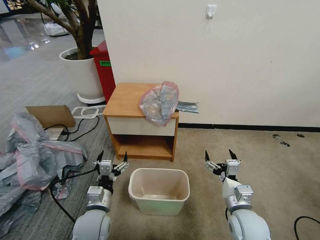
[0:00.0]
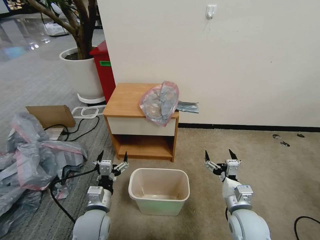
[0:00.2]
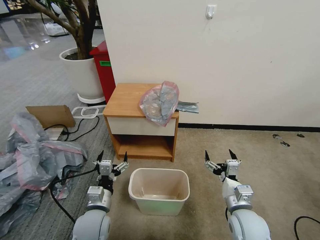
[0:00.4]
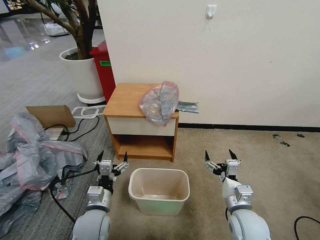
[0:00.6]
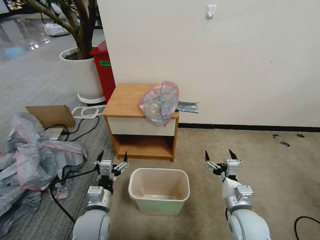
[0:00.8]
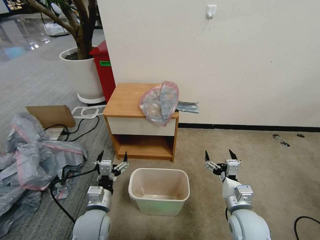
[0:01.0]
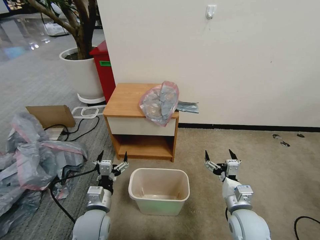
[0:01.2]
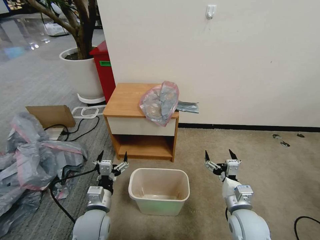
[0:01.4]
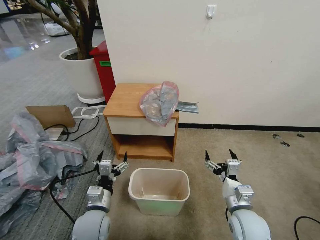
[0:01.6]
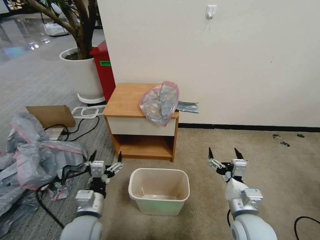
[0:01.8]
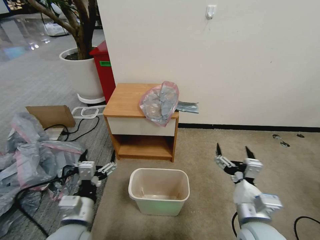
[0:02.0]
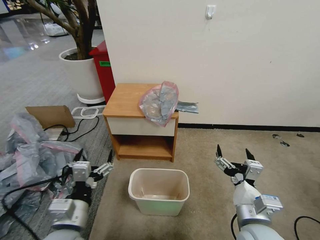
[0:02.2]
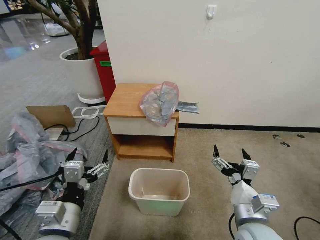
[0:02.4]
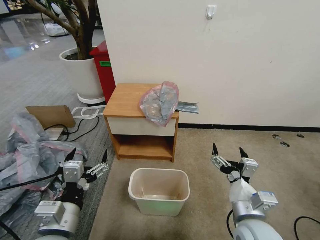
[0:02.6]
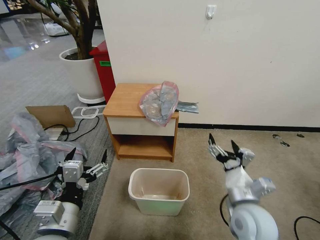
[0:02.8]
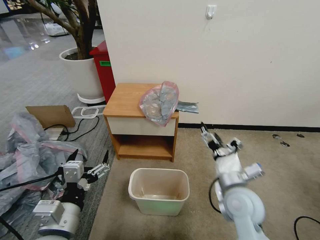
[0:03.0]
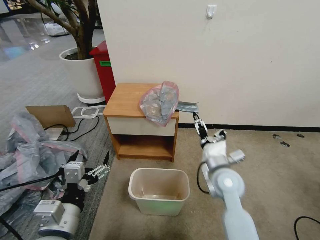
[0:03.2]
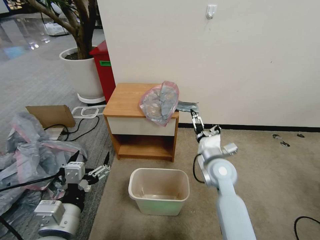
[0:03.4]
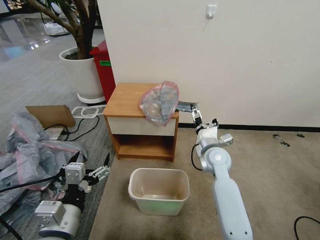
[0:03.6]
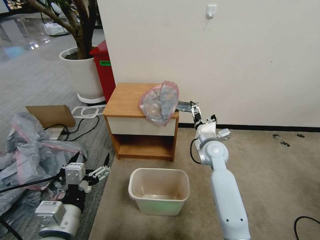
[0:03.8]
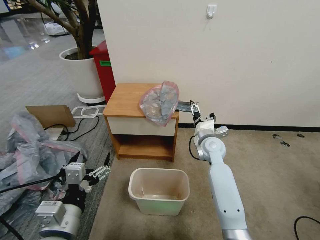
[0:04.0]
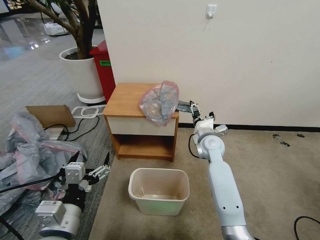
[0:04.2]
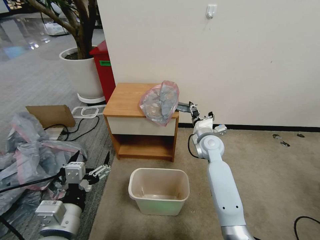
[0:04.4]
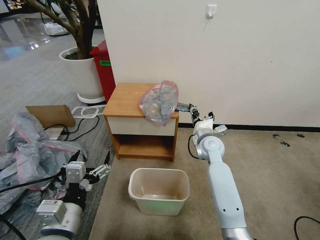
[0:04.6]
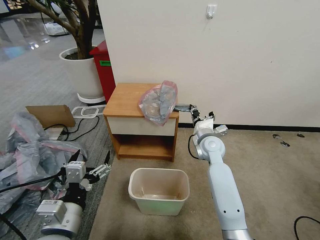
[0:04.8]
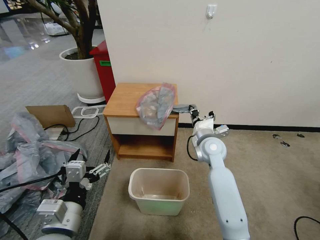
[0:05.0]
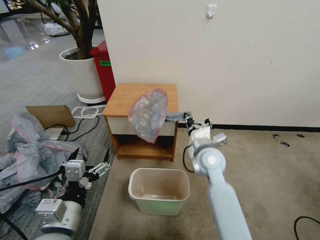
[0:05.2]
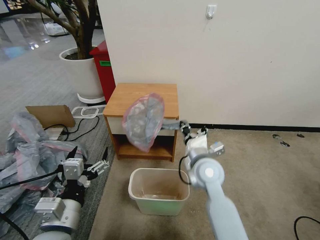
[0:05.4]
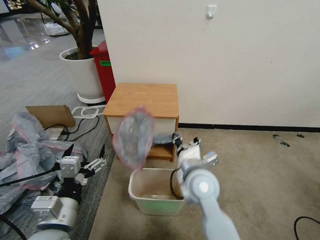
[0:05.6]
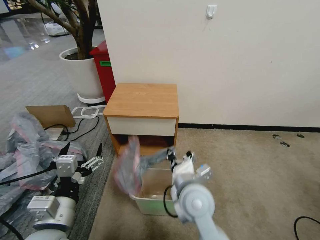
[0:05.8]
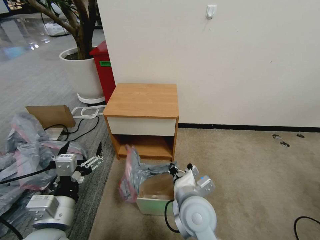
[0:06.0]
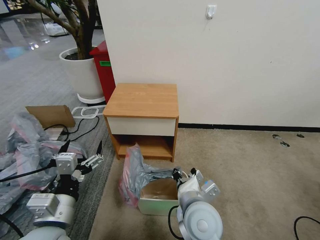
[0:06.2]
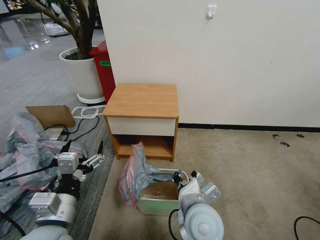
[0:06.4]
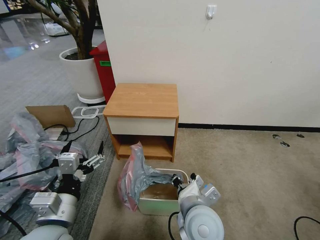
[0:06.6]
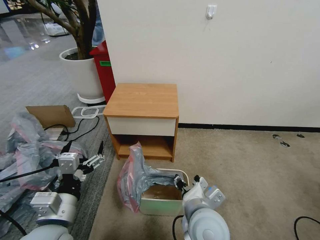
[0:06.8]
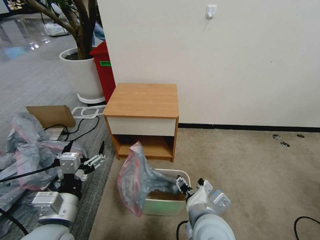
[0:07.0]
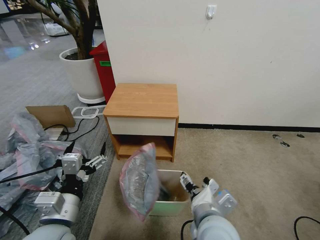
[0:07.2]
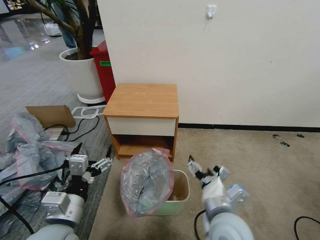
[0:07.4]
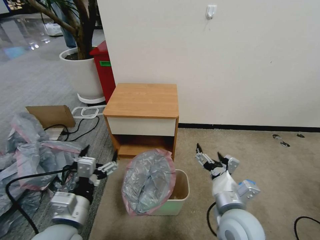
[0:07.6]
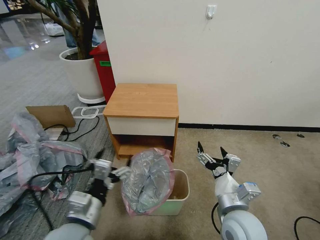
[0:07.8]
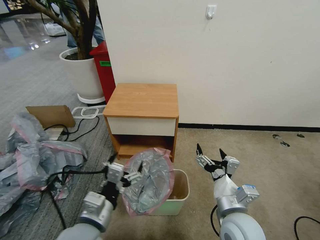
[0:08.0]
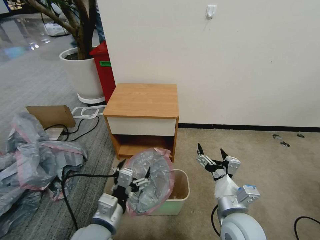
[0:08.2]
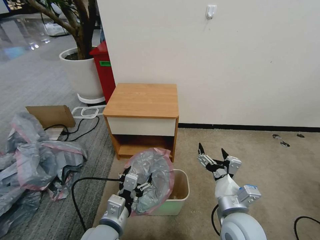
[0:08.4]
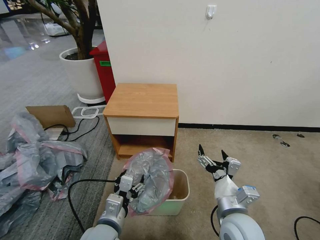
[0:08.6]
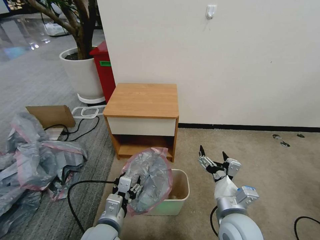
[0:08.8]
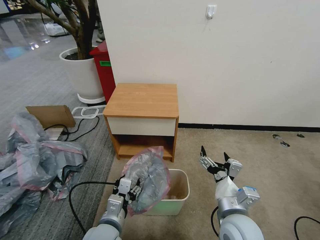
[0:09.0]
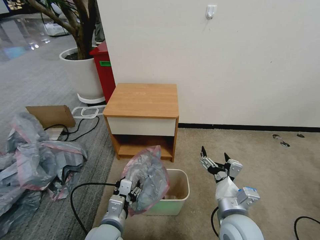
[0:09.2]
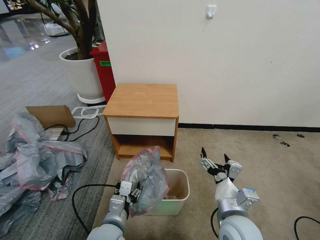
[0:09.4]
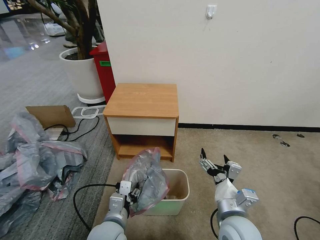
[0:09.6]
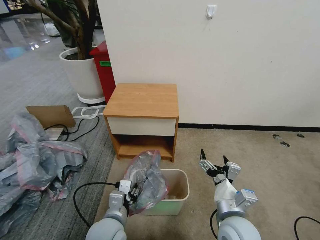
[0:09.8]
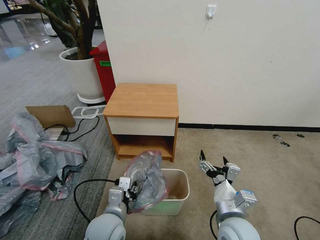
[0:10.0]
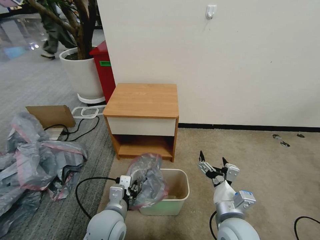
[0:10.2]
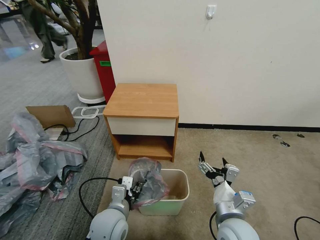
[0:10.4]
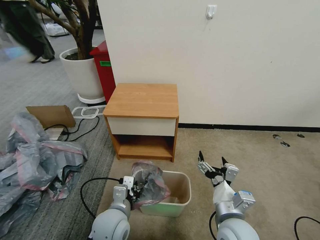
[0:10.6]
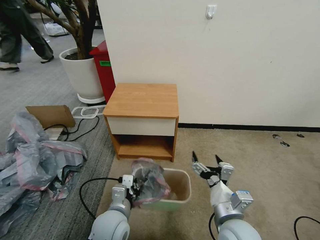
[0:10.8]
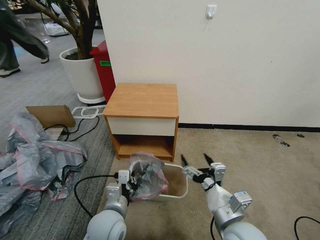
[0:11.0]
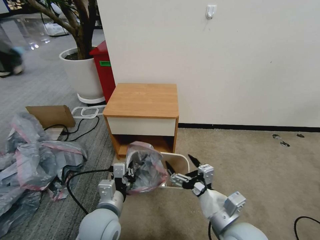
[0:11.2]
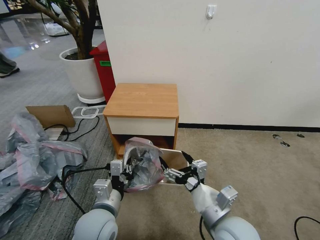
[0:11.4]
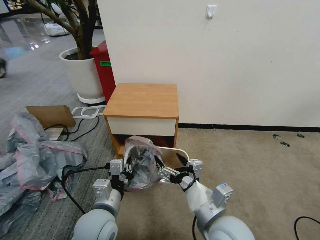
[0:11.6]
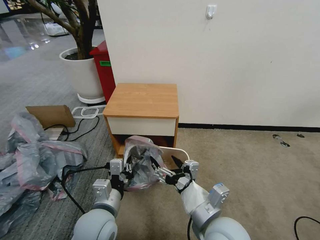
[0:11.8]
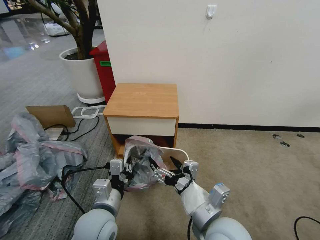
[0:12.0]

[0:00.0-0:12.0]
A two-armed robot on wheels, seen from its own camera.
Task of the whole recording: Pick up the garbage bag from the table and place it over the trash can.
0:01.6 to 0:03.0: The right gripper moves upward, about 10 cm. The left gripper shifts some 15 cm upward and backward.
0:03.0 to 0:04.4: The right gripper goes about 20 cm forward, and closes its fingers.
0:04.4 to 0:06.0: The right gripper shifts approximately 25 cm backward and to the left, and closes.
0:06.0 to 0:07.6: The right gripper shifts about 10 cm to the right, and opens its fingers.
0:07.6 to 0:09.0: The left gripper shifts about 10 cm downward and to the right, and closes its fingers.
0:09.0 to 0:10.4: The grippers make only small movements.
0:10.4 to 0:12.0: The left gripper moves some 5 cm. Meanwhile the right gripper shifts approximately 10 cm upward and to the left.

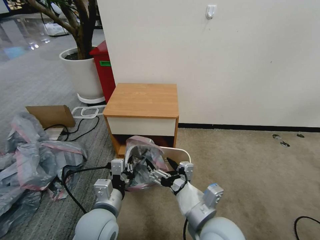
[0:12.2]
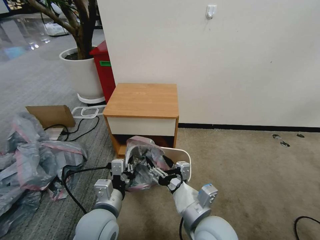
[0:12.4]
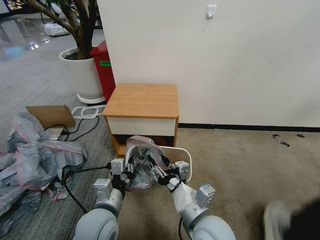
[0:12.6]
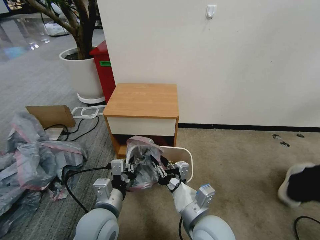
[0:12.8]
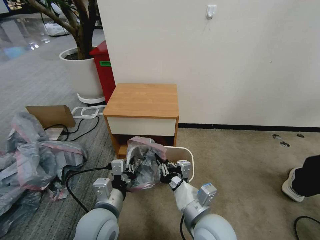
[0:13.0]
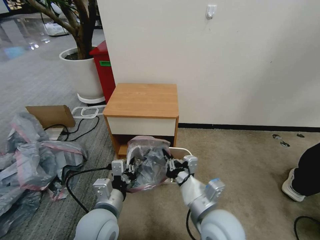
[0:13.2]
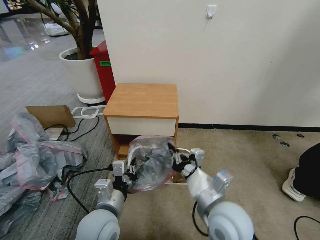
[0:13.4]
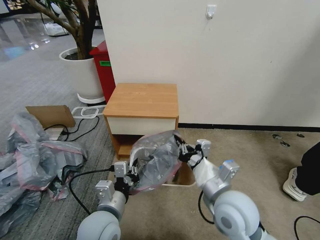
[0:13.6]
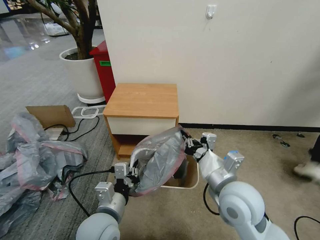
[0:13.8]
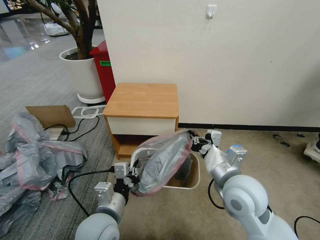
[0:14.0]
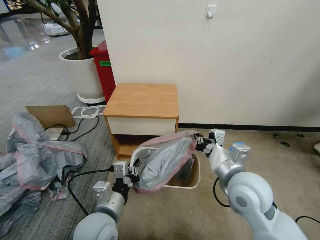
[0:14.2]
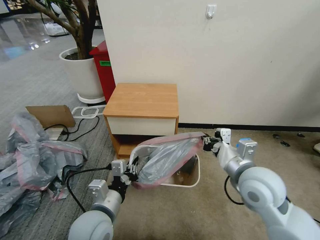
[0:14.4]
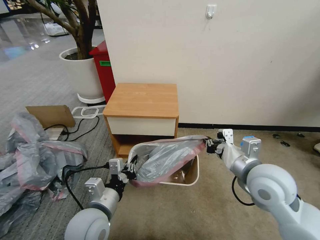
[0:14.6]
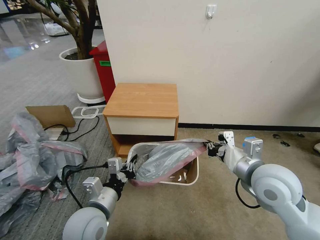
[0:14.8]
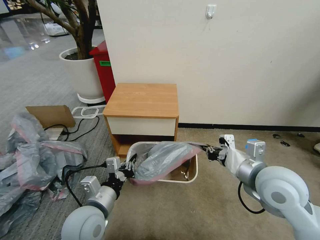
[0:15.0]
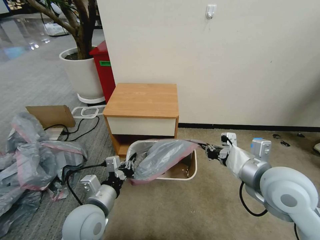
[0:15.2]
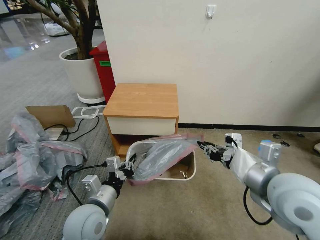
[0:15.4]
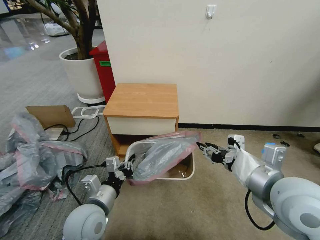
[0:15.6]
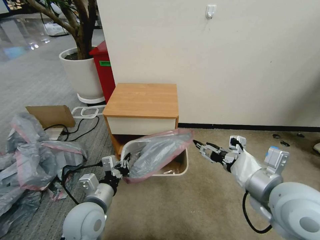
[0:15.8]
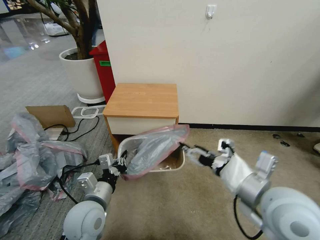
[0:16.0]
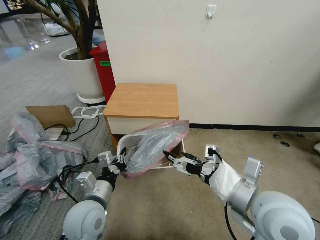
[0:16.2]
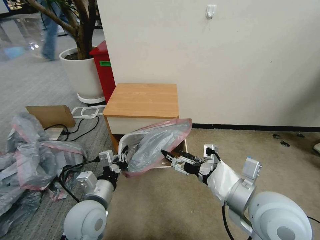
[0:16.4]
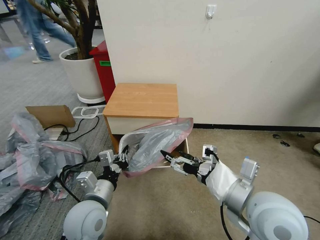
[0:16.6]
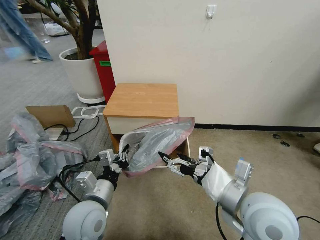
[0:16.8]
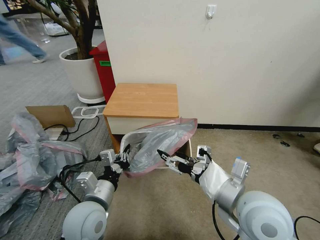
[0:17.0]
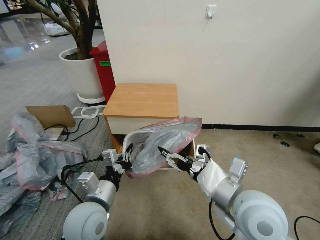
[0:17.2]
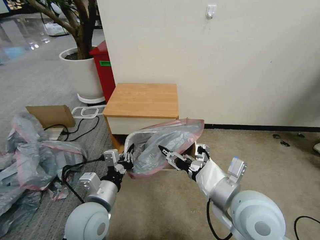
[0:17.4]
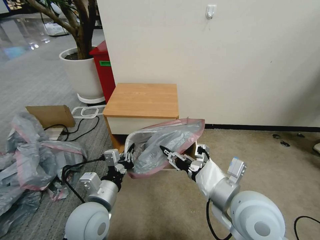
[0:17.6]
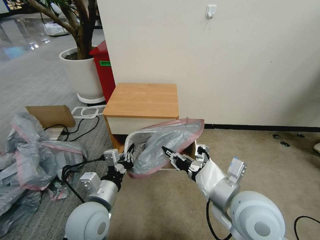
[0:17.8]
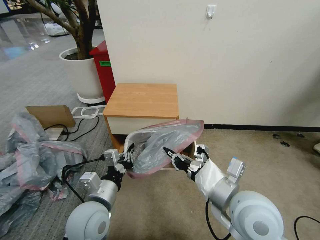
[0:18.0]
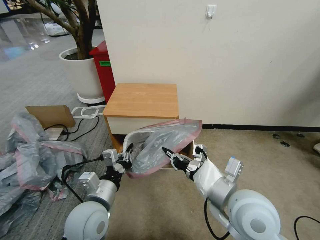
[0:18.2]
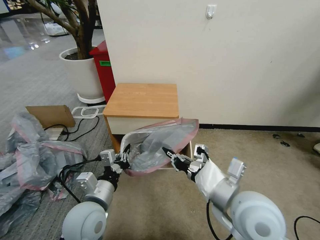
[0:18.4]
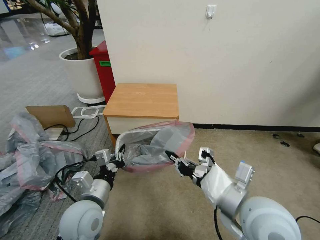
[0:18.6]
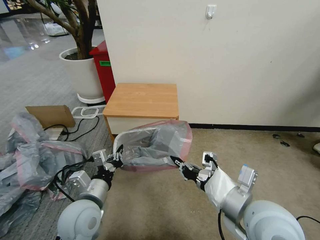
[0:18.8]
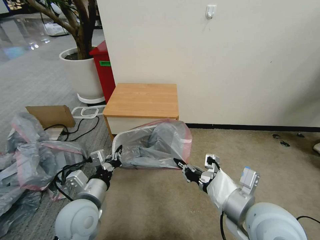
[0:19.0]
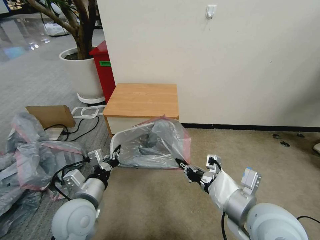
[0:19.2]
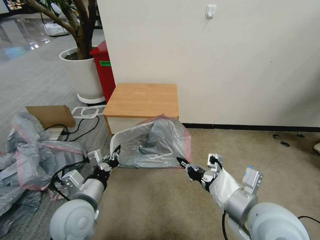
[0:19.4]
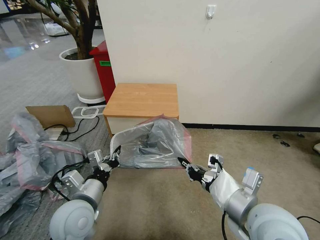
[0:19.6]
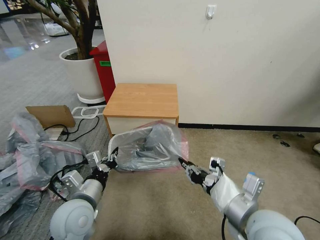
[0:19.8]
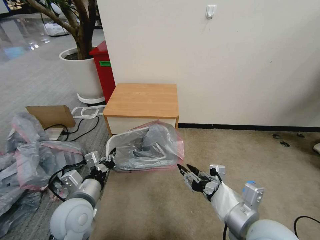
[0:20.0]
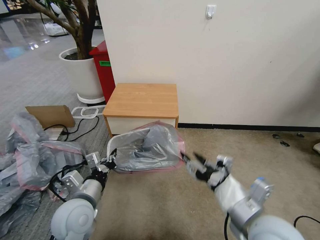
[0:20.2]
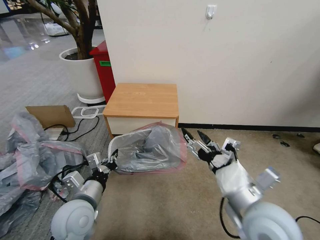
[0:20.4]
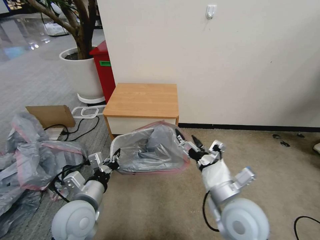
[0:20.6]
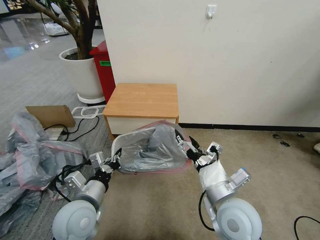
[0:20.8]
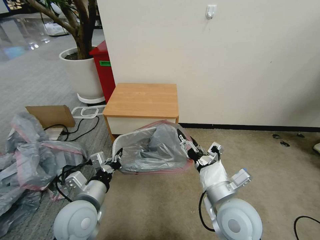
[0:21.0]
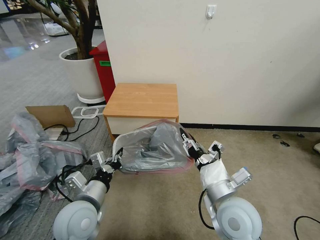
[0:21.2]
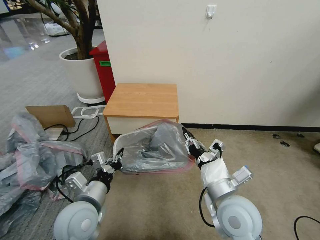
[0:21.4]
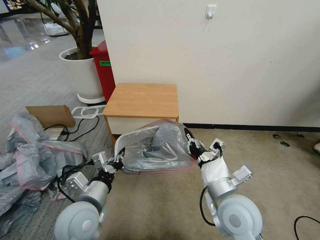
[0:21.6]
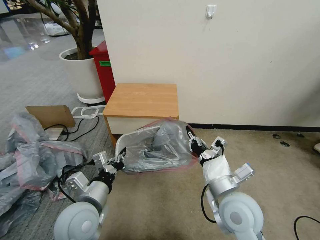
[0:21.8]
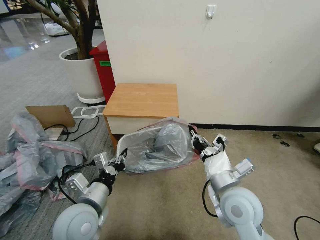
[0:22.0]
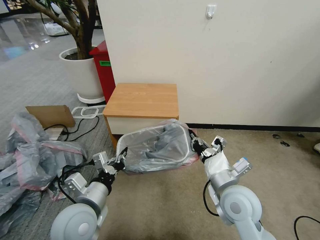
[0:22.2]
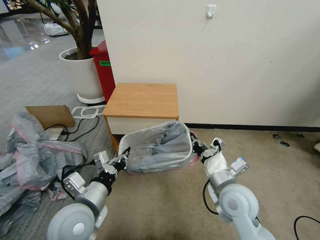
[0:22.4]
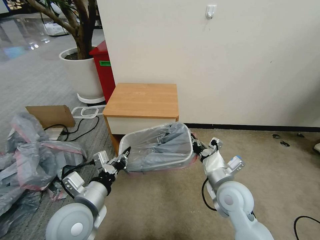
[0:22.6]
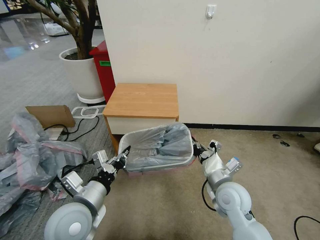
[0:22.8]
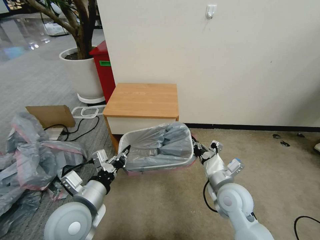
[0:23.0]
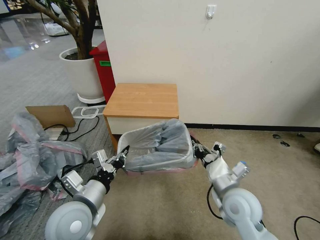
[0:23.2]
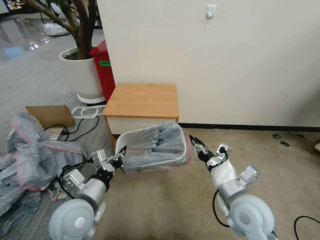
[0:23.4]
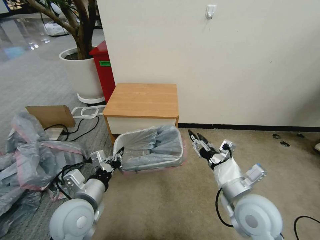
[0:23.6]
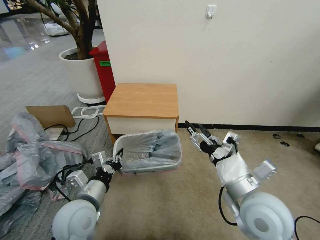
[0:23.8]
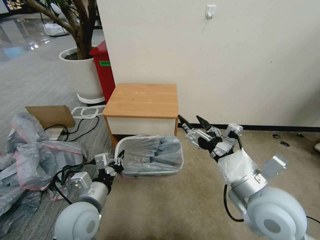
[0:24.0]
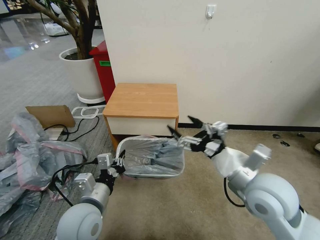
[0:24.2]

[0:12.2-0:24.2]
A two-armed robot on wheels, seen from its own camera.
Task of the whole recording: Pick up the garbage bag from the table and place it over the trash can.
0:12.2 to 0:13.8: The right gripper heads forward and to the right, covering roughly 10 cm, and closes.
0:13.8 to 0:15.2: The right gripper moves to the right and upward, approximately 10 cm.
0:15.2 to 0:16.6: The right gripper goes roughly 5 cm to the left and backward, and opens.
0:16.6 to 0:18.2: The right gripper closes up.
0:18.2 to 0:19.8: The right gripper shifts by about 5 cm.
0:19.8 to 0:21.2: The right gripper changes place by roughly 10 cm, and opens, then closes once more.
0:21.2 to 0:22.6: The right gripper moves forward, roughly 5 cm, and closes up.
0:22.6 to 0:24.2: The right gripper goes approximately 10 cm upward, and opens up.
